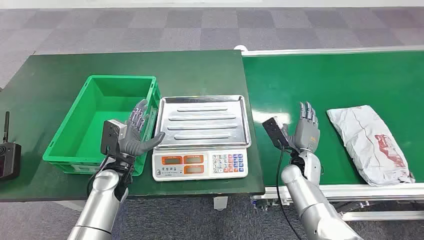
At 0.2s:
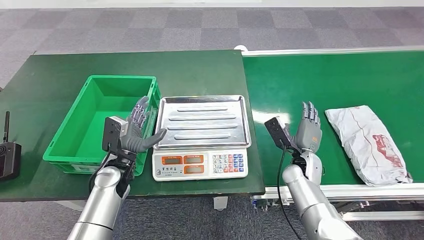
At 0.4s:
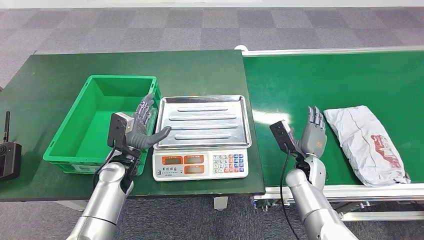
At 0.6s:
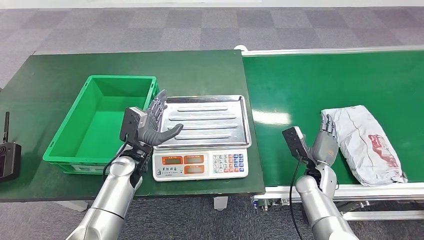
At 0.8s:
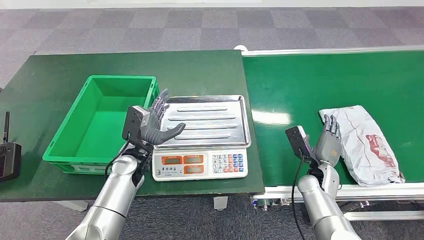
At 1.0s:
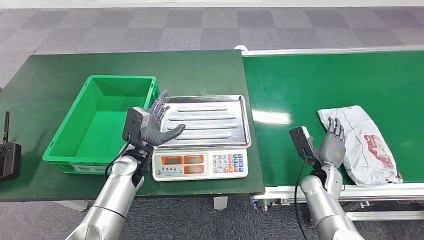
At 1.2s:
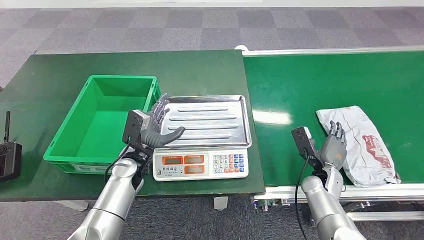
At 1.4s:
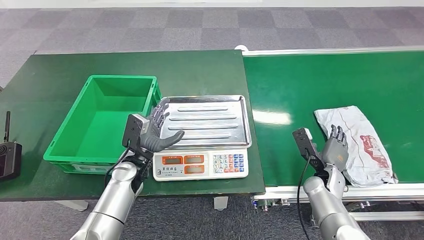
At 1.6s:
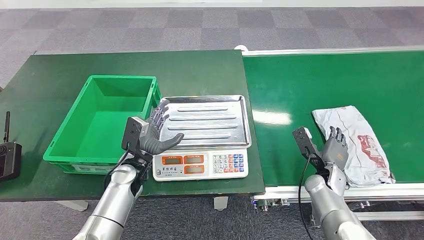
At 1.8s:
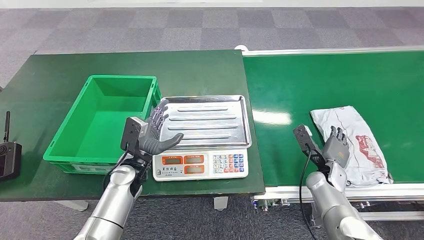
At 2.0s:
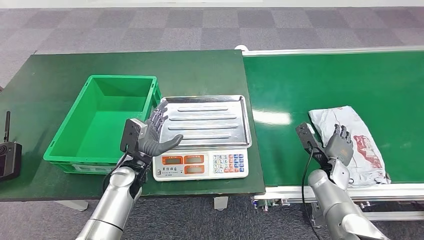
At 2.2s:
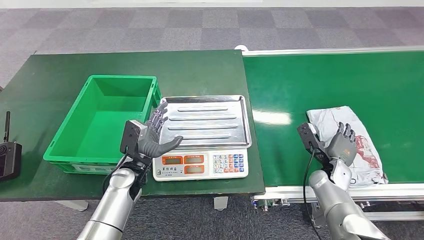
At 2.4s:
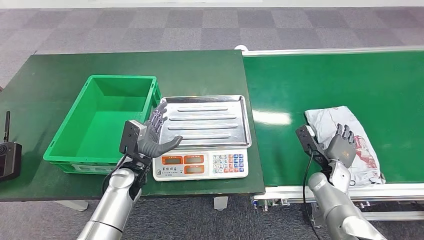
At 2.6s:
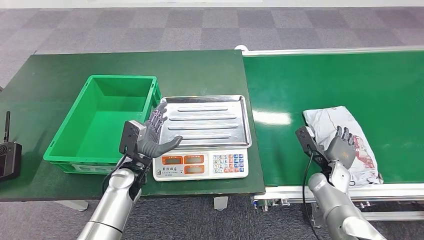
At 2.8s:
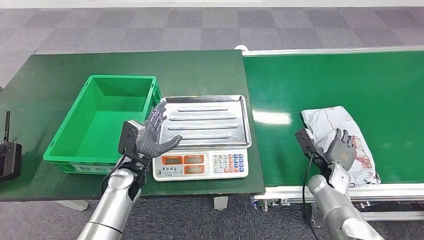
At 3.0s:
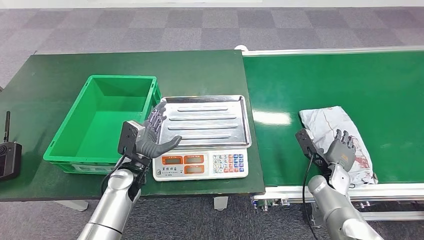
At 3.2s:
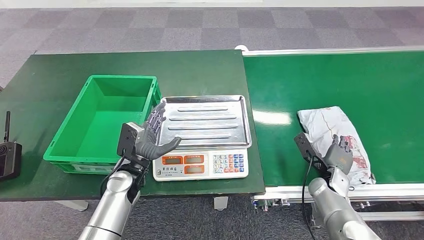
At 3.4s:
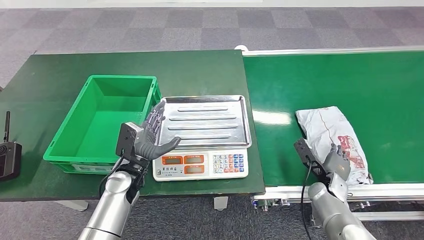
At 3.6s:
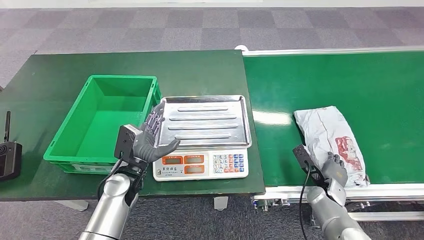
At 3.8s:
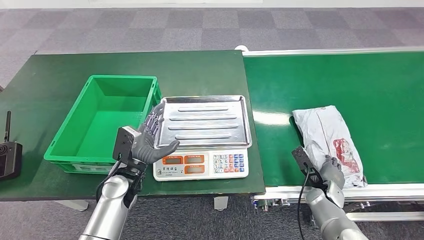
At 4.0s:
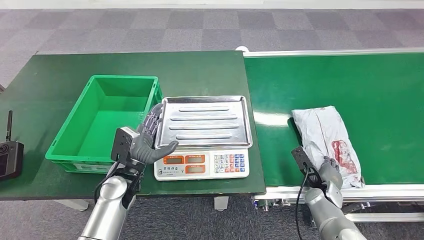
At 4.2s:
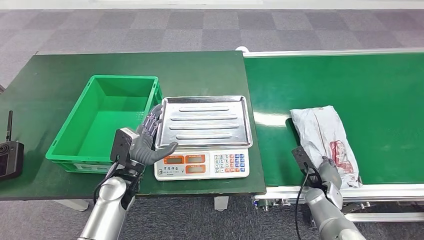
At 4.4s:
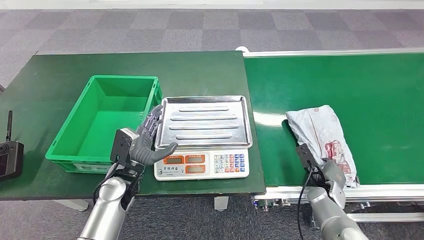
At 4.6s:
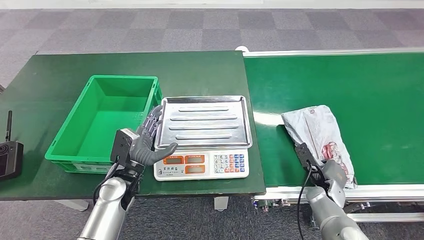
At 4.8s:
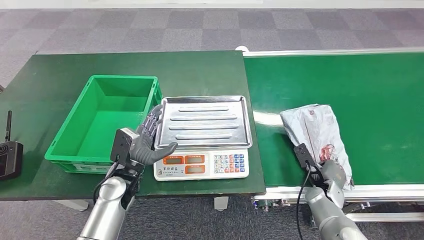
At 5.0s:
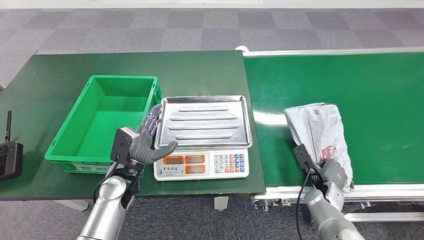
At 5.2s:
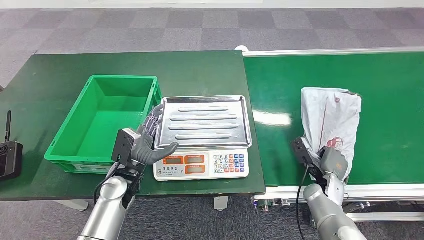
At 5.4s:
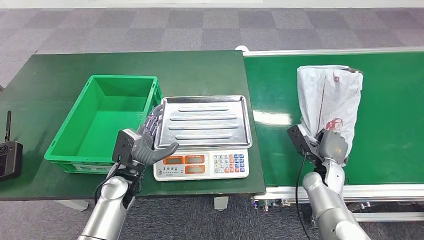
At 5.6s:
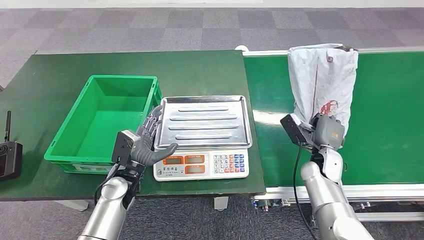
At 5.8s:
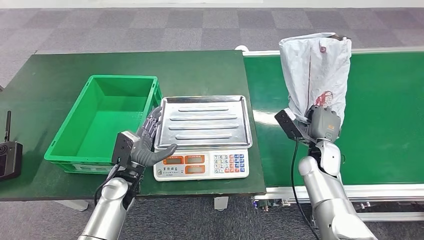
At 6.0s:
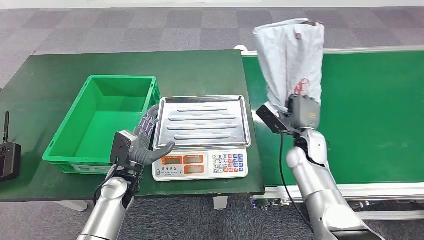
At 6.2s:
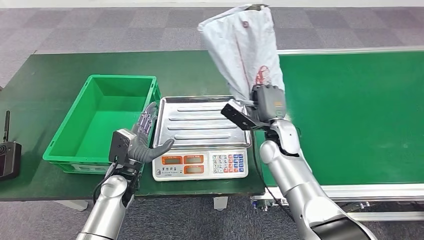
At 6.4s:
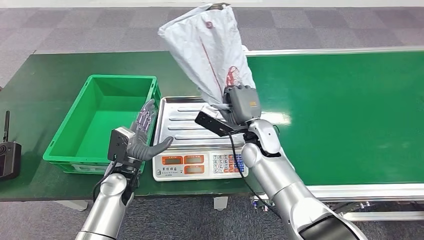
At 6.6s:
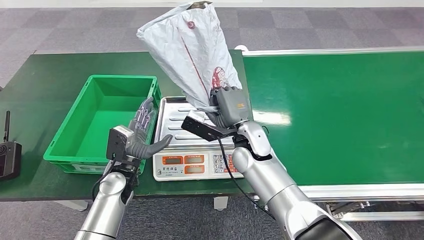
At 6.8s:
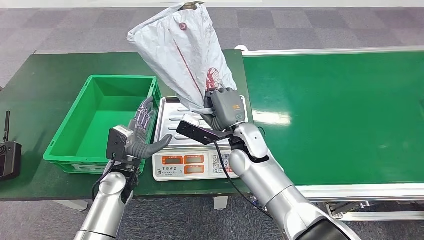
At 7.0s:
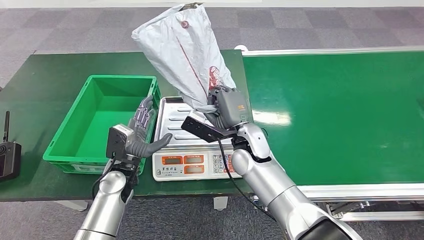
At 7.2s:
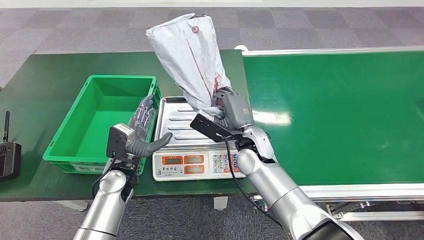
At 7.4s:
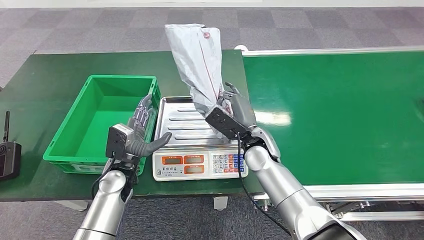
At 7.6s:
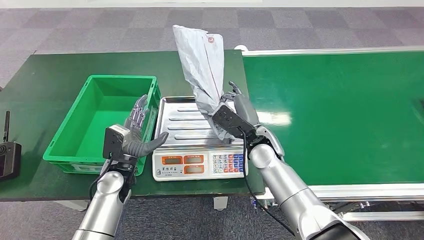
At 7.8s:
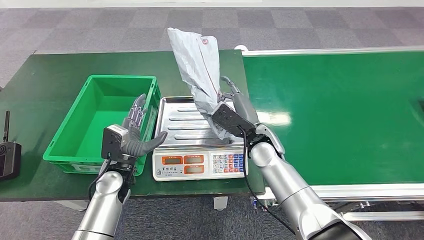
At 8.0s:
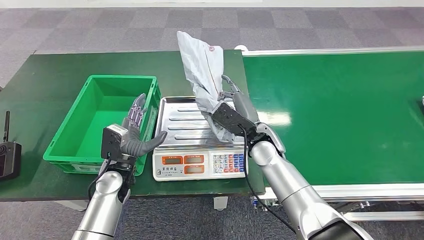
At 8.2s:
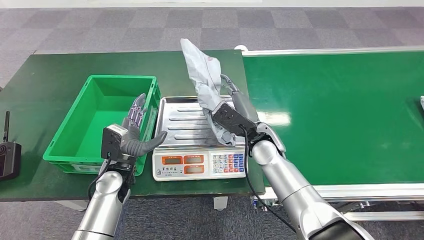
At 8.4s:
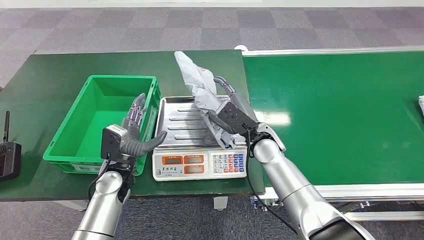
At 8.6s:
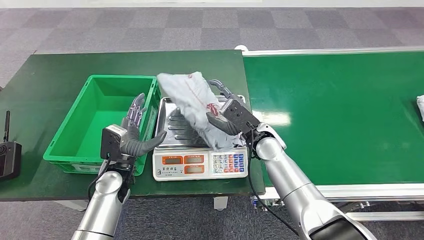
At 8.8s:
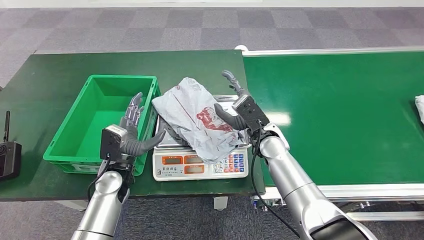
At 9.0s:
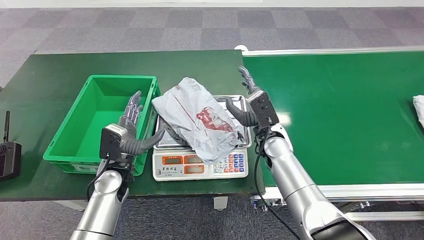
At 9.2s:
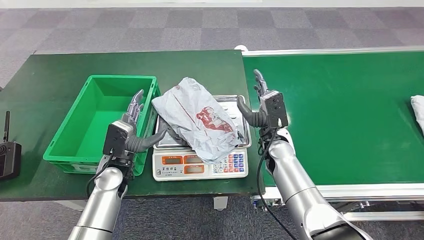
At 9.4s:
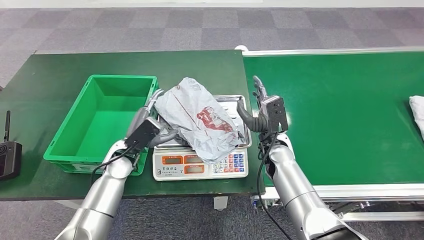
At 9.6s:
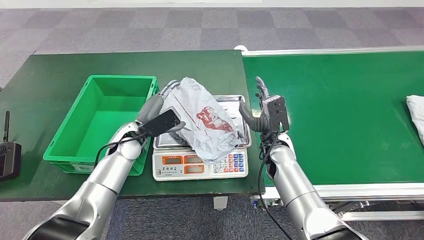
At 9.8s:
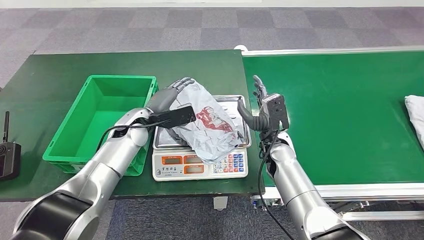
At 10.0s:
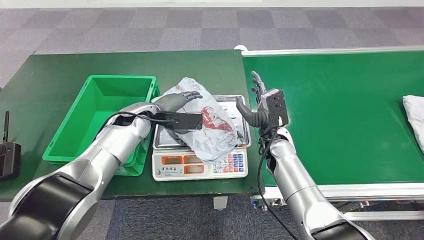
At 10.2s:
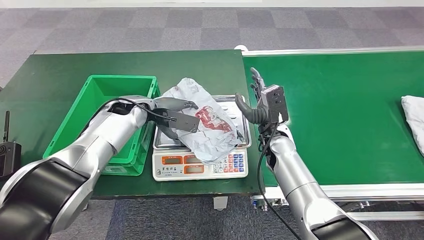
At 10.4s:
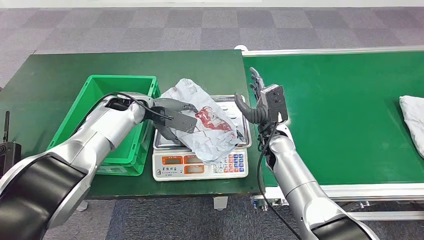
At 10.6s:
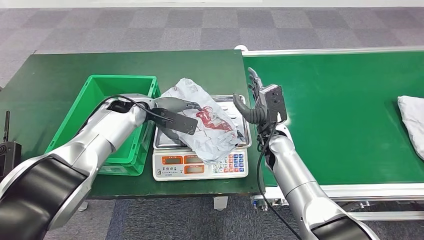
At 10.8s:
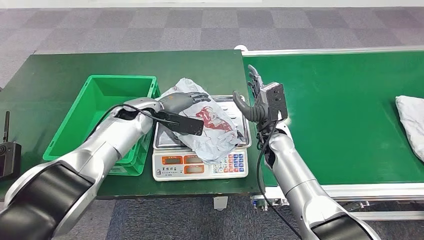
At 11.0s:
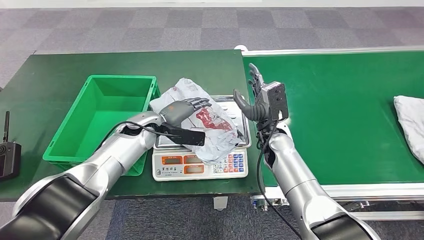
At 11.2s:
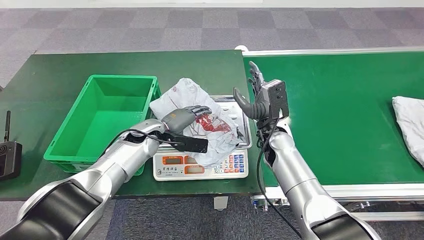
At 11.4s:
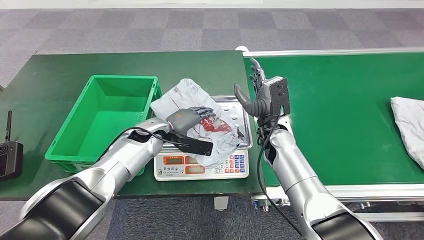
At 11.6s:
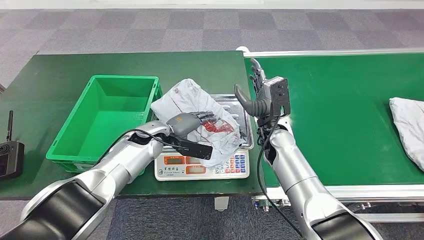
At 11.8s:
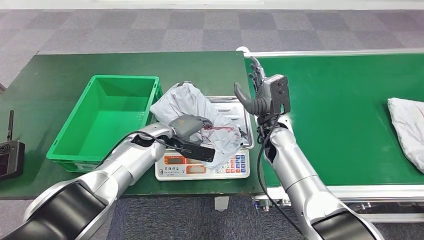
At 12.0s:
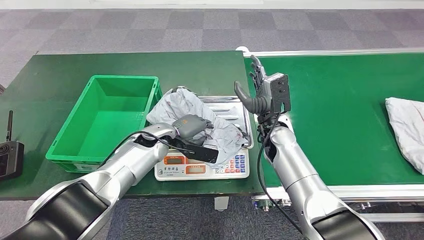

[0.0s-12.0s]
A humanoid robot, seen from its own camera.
Step, 0.0s to 5.8s: Pick up the package from the conveyor belt.
Step, 6.0s to 9.0s: Place the package onto the inbound machine.
1.6s to 3.0s: The hands stay close to where they were, moving slightly.
3.0s to 4.4s: The right hand moves approximately 5 cm.

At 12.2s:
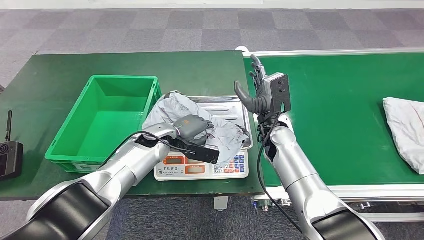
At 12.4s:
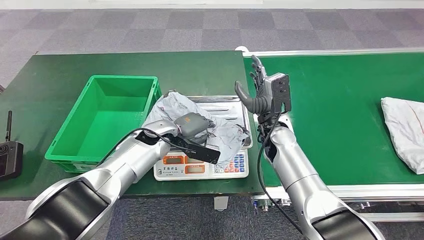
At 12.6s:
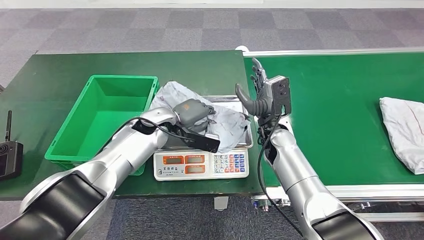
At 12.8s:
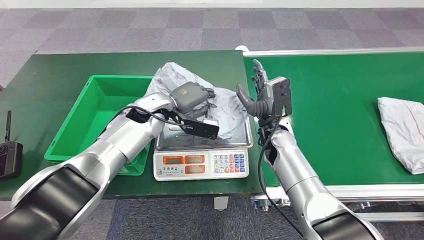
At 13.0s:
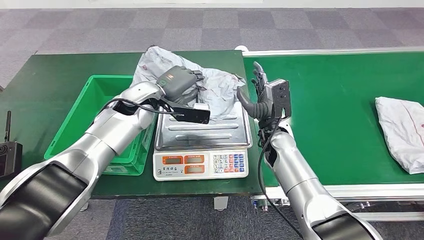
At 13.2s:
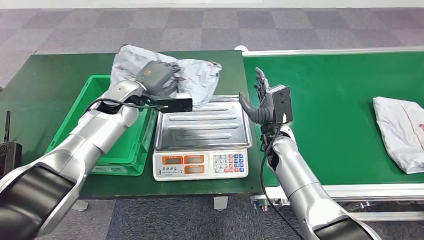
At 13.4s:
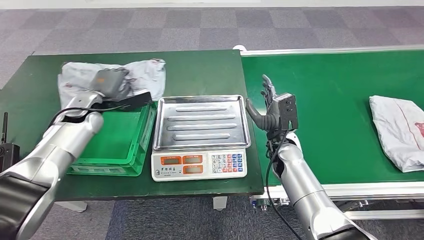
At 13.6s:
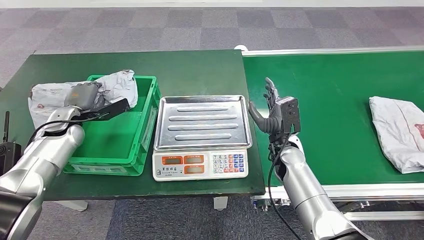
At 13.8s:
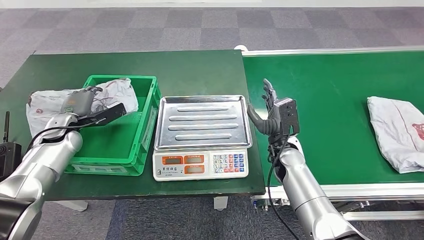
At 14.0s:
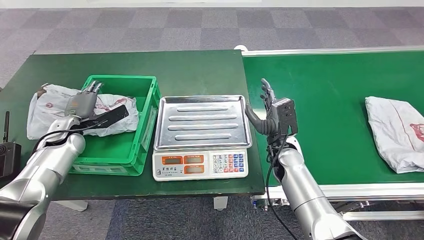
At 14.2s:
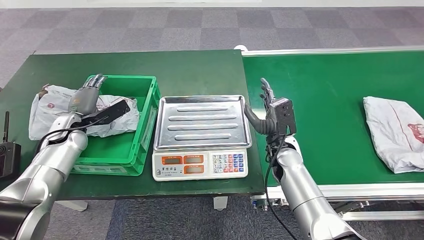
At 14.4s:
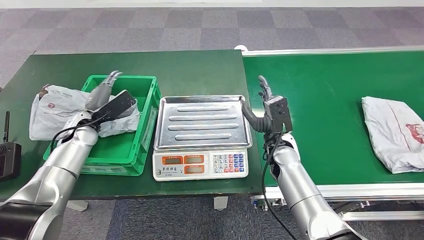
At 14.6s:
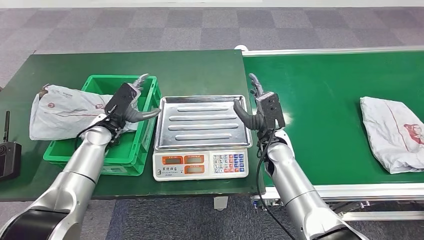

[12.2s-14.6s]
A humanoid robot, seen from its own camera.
Step, 13.4s to 14.6s: Place the package into the parcel locker.
